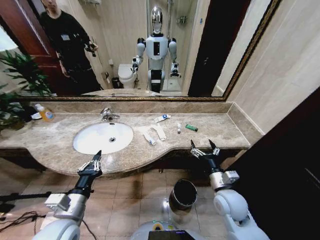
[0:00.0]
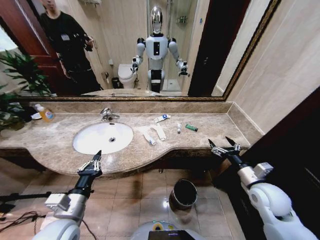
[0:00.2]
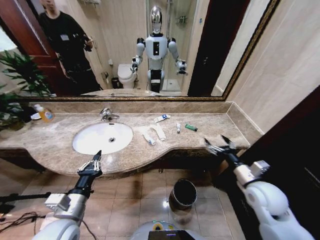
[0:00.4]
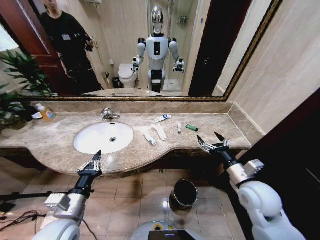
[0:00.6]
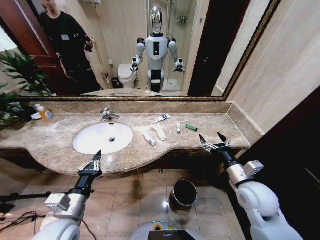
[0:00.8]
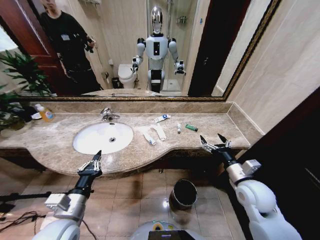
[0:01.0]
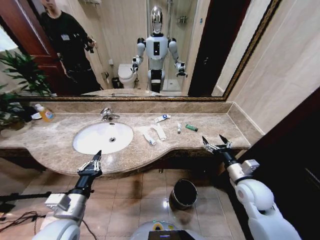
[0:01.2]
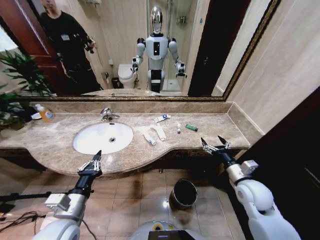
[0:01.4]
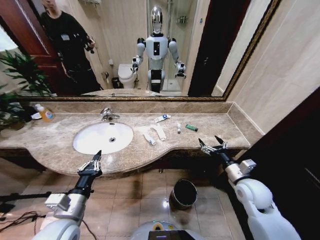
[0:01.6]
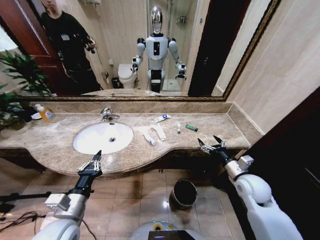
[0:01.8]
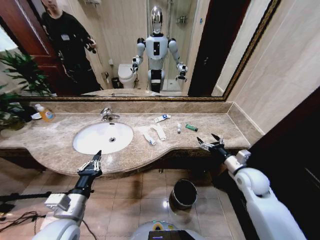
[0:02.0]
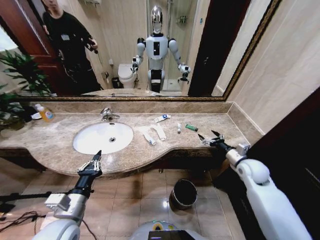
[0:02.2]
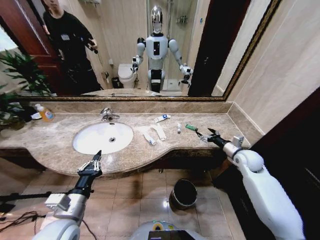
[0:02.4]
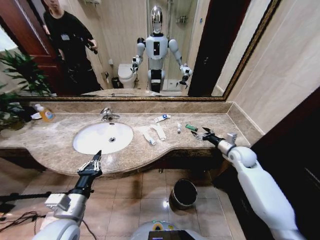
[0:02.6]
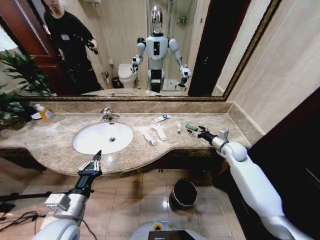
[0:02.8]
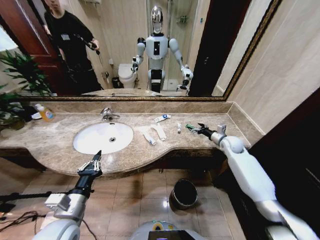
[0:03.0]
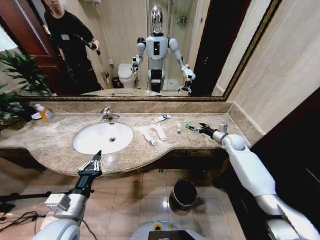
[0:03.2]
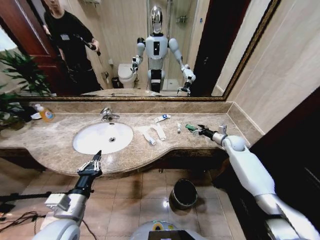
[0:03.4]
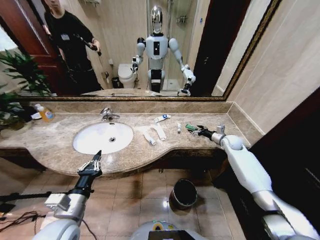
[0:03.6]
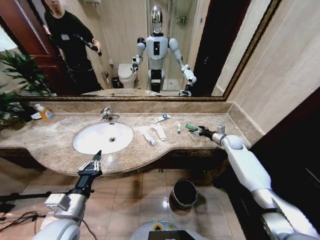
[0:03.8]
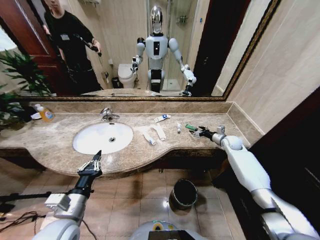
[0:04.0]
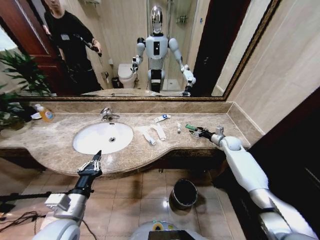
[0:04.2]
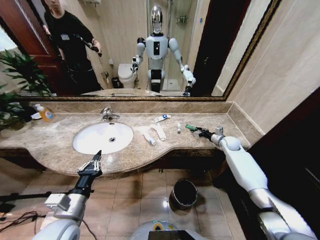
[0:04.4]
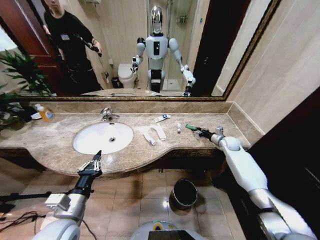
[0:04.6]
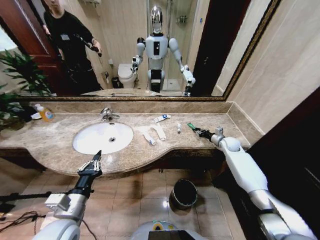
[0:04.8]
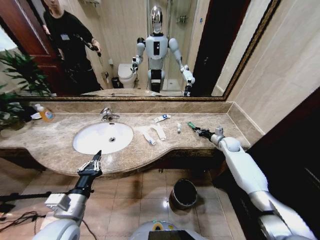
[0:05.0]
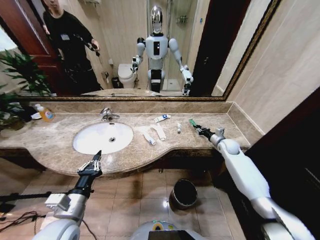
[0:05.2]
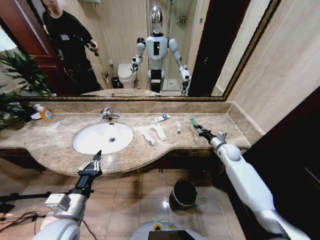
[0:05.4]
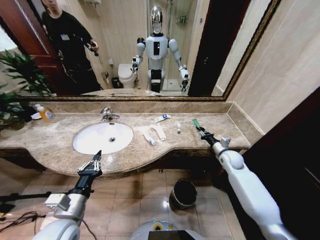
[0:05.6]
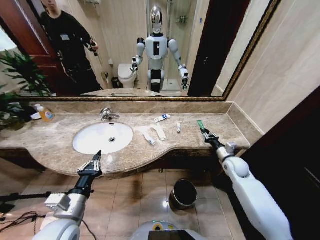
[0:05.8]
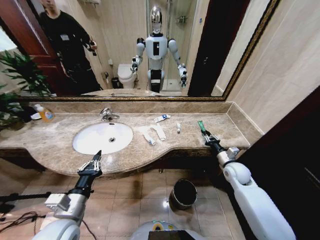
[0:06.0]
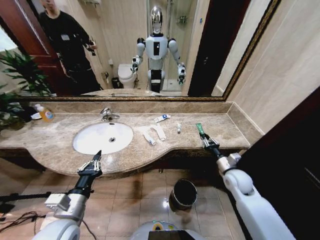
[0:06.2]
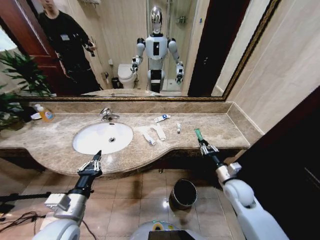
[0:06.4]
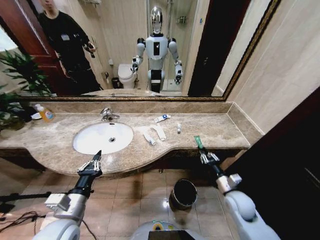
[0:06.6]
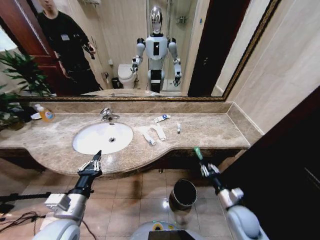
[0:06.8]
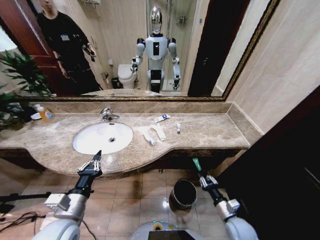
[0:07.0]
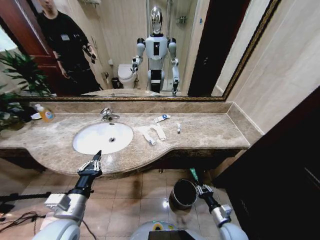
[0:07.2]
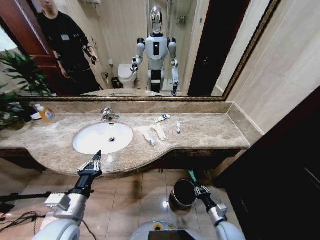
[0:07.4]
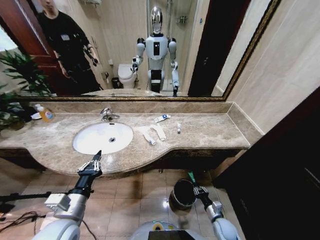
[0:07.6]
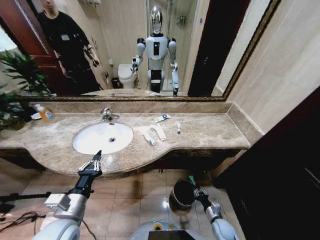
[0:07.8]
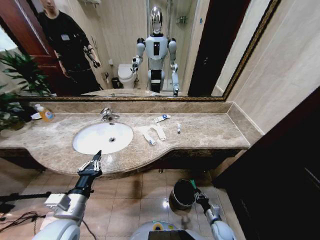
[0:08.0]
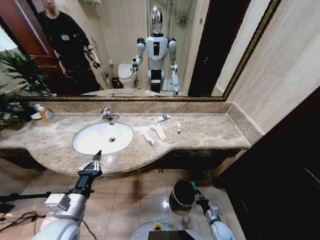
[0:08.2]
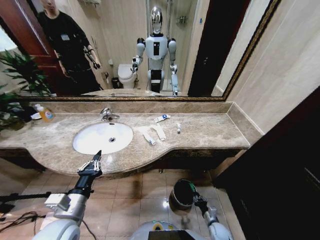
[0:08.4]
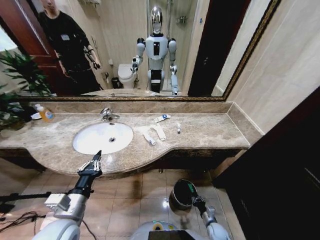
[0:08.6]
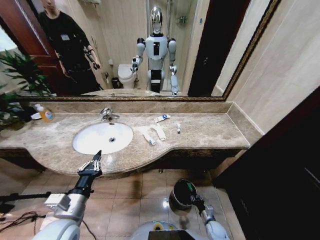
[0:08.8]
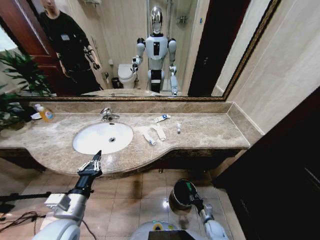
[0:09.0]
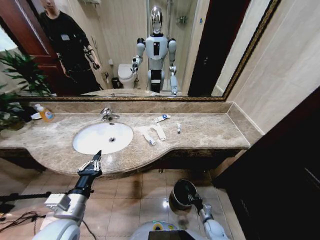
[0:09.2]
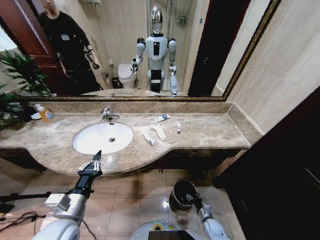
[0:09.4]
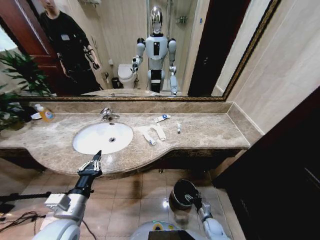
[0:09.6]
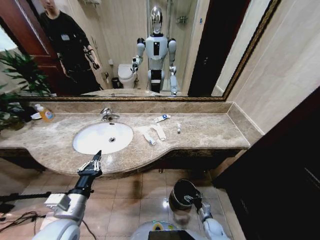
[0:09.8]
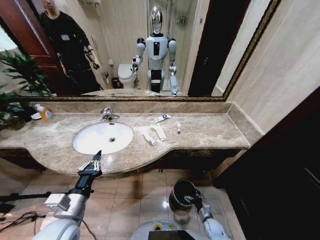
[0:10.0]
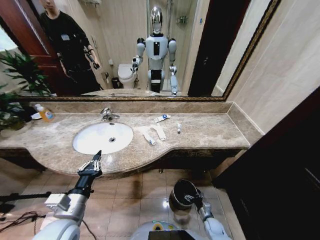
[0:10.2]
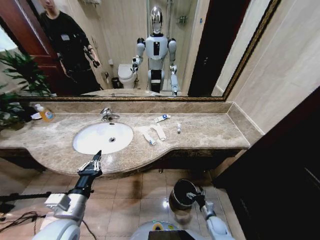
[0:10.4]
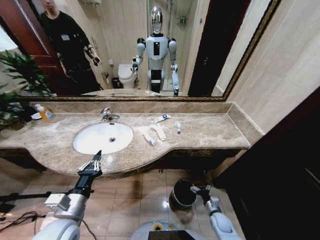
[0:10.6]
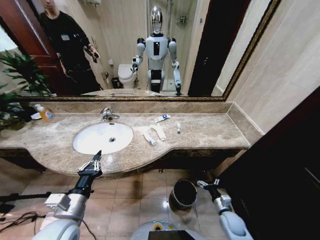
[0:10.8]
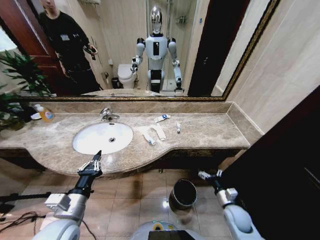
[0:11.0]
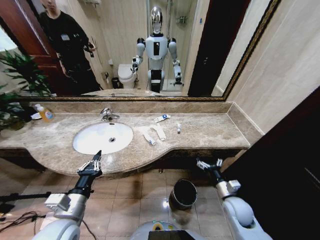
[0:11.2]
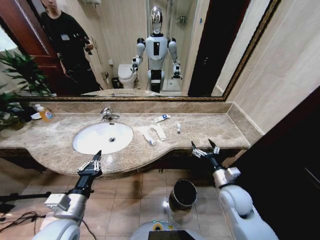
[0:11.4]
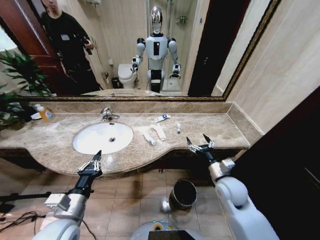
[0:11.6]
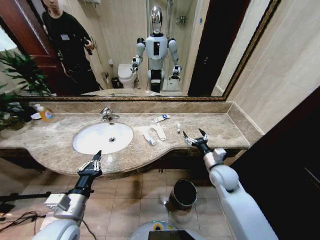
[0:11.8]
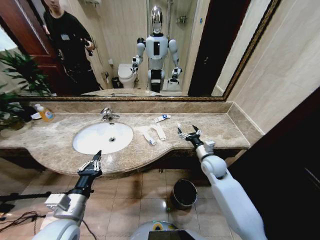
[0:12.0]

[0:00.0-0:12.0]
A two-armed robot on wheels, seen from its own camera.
Task of the whole recording: Pick up the trash from the sink and place it in the trash bin.
0:01.6 to 0:03.0: The right gripper moves forward, some 20 cm.
0:03.0 to 0:04.4: The right gripper ends up some 5 cm from where it was.
0:04.4 to 0:06.0: The right gripper goes about 15 cm backward, and closes its fingers.
0:06.0 to 0:07.6: The right gripper is displaced downward and backward by some 30 cm.
0:07.6 to 0:09.0: The right gripper shifts about 10 cm downward.
0:09.0 to 0:10.4: The right gripper opens up.
0:10.4 to 0:12.0: The right gripper travels upward and forward by some 40 cm.

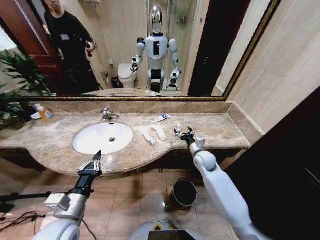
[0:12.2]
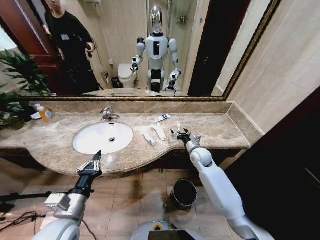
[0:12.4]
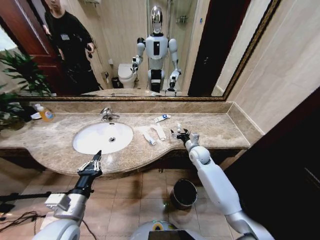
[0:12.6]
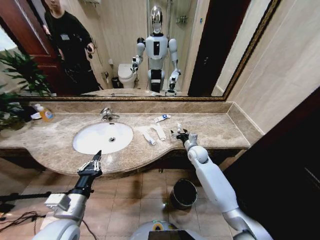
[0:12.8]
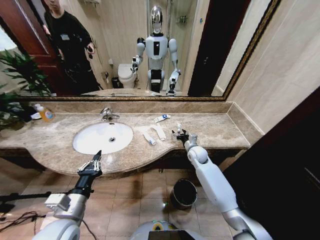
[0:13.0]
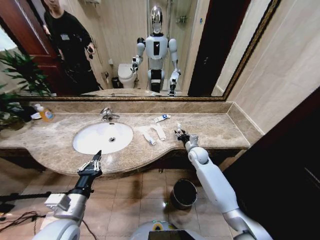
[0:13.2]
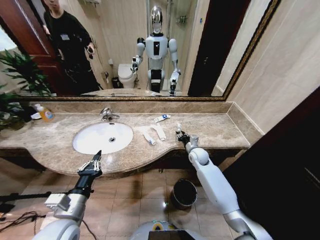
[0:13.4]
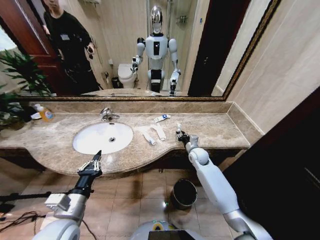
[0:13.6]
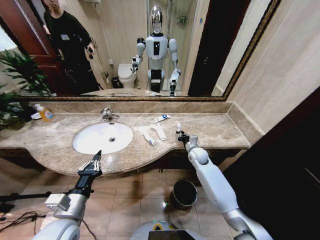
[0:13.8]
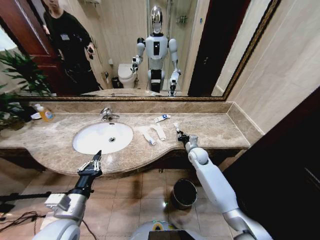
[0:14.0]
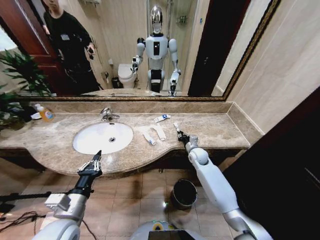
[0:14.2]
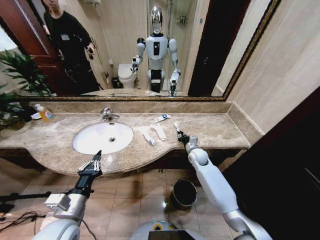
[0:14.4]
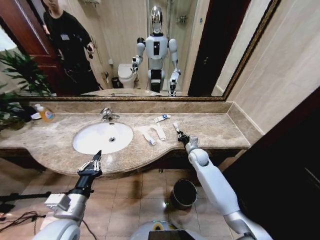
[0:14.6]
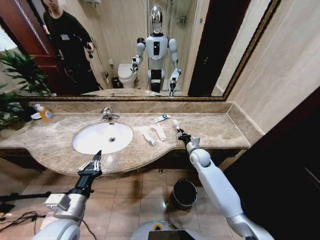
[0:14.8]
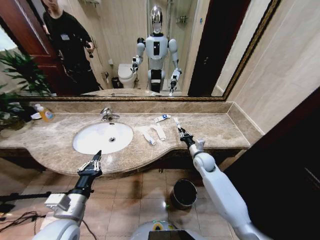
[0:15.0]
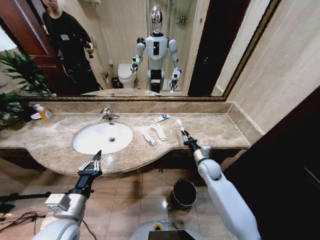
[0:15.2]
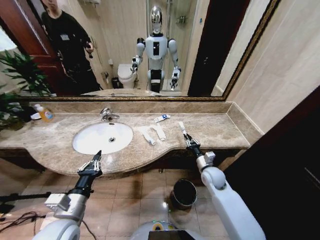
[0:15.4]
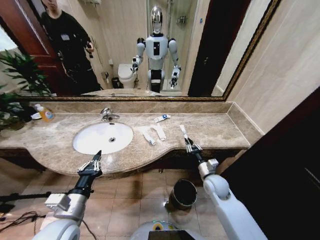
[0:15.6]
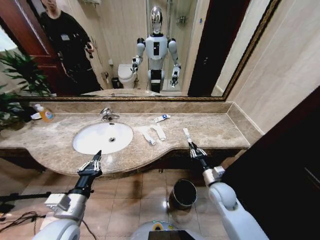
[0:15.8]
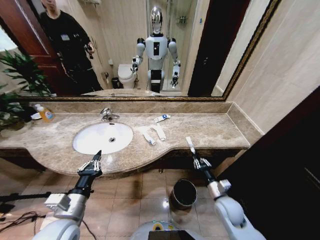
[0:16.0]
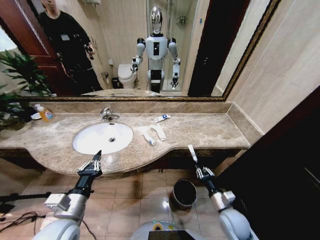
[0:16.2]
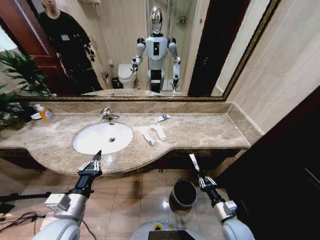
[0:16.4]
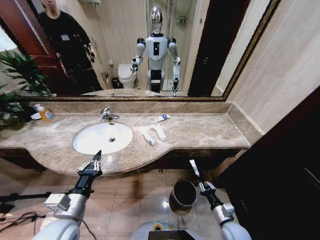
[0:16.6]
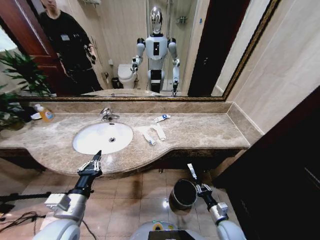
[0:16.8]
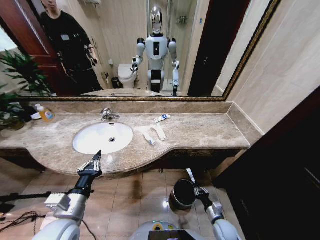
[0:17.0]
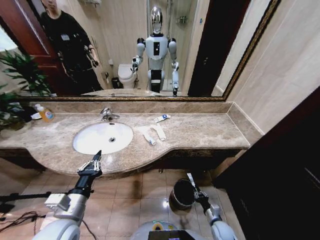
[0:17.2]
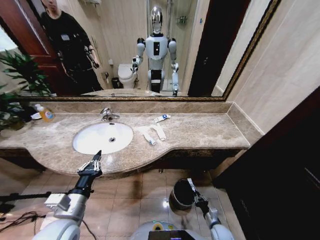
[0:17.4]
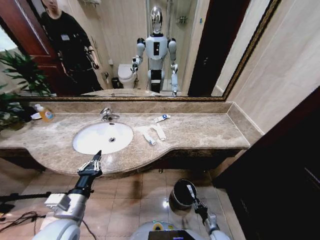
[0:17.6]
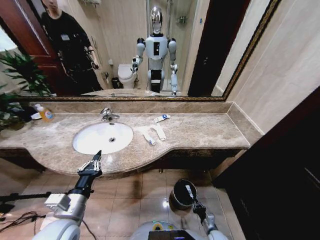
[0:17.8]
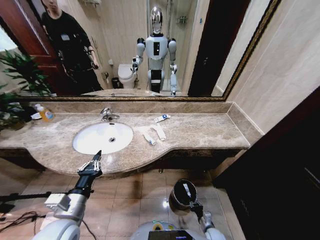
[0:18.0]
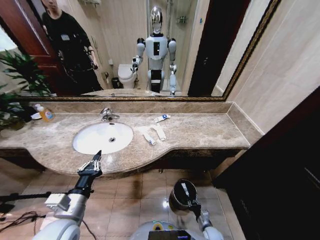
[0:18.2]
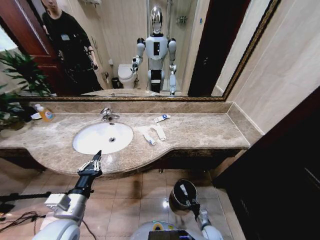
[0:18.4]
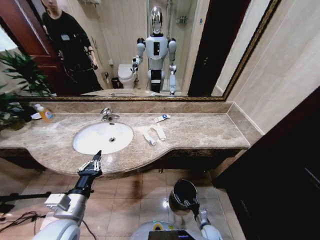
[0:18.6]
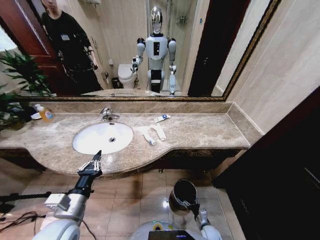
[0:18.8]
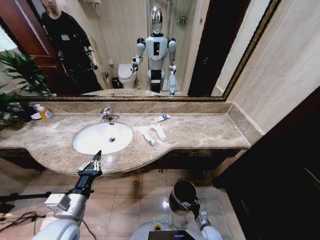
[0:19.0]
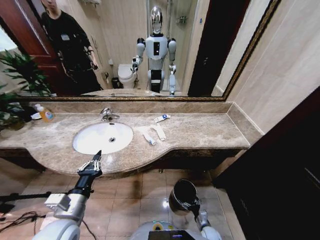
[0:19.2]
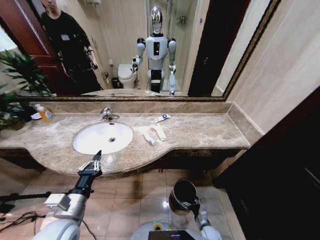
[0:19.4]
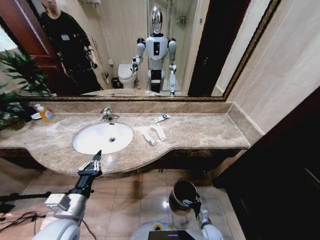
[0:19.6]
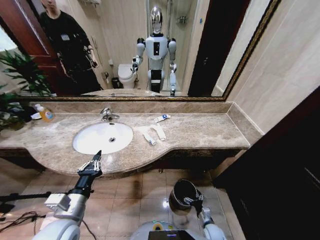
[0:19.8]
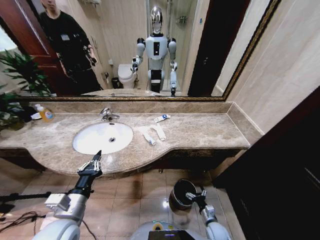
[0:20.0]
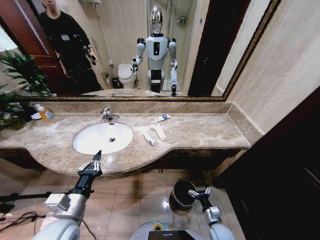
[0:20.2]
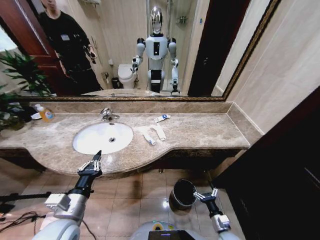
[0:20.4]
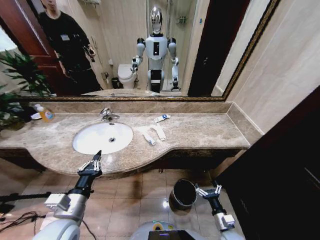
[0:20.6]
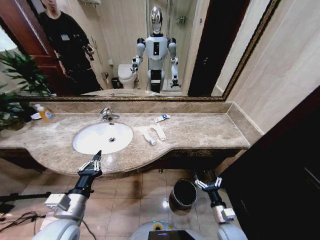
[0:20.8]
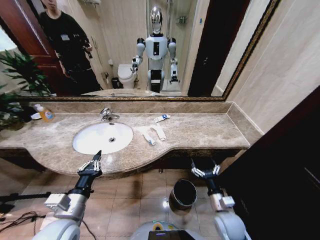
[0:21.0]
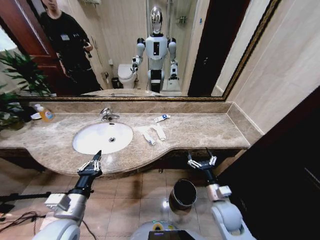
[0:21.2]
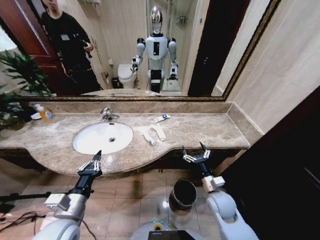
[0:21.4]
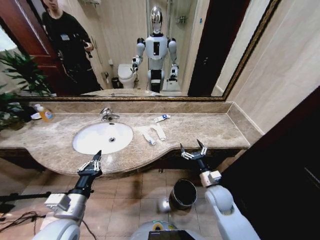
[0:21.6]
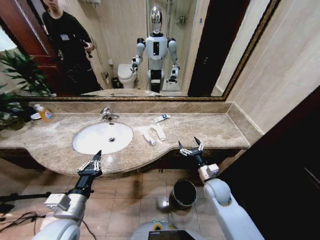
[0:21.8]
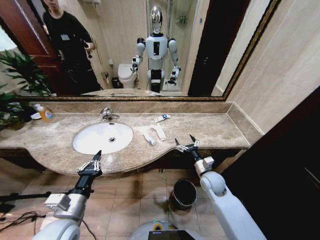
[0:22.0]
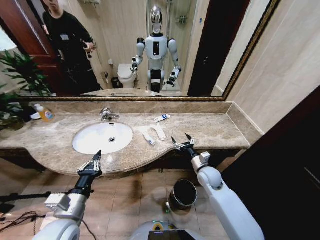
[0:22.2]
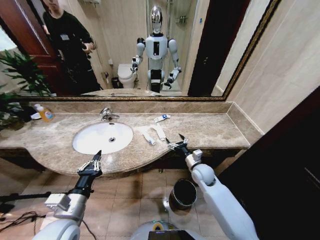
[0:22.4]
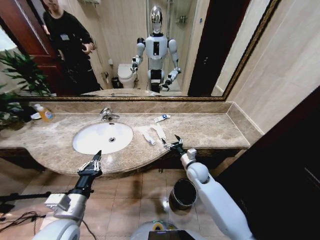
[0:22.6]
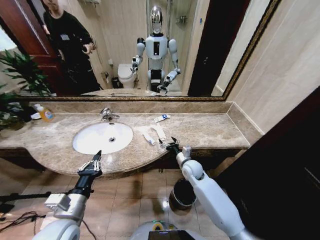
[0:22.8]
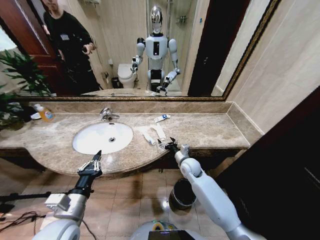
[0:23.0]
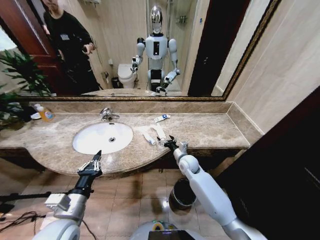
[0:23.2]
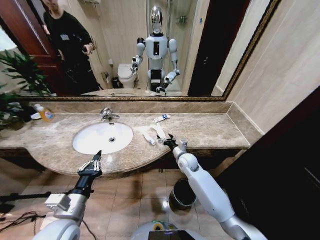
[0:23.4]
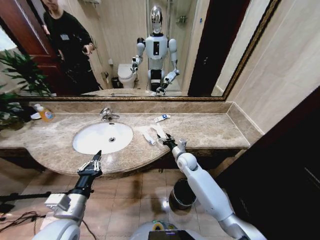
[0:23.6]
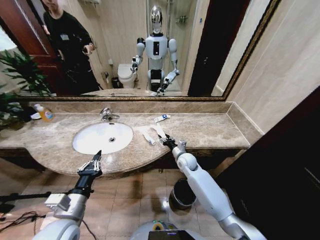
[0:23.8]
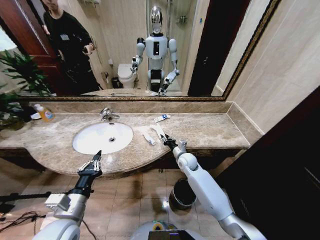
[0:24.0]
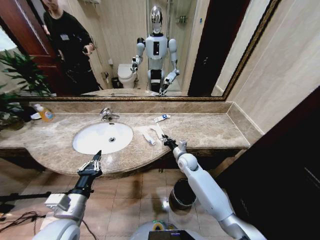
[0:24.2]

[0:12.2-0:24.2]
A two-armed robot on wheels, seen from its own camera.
Task of the whole recording: Pick up the trash from the sink and place it in the trash bin.
0:12.2 to 0:13.8: The right gripper moves approximately 5 cm, and closes up.
0:13.8 to 0:15.2: The right gripper shifts roughly 10 cm backward.
0:15.2 to 0:16.6: The right gripper goes some 25 cm backward and downward.
0:16.6 to 0:18.2: The right gripper moves downward, approximately 20 cm.
0:18.2 to 0:19.8: The right gripper opens its fingers.
0:19.8 to 0:21.2: The right gripper travels upward by approximately 25 cm.
0:21.2 to 0:22.6: The right gripper heads forward, covering some 15 cm.
0:22.6 to 0:24.2: The right gripper moves forward, approximately 5 cm, and closes.
